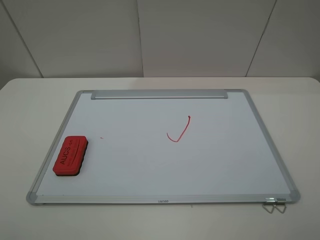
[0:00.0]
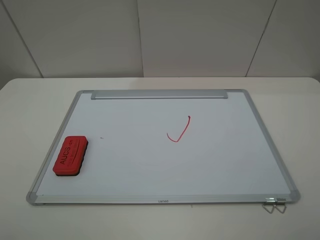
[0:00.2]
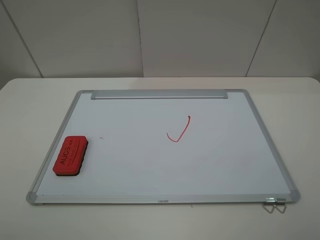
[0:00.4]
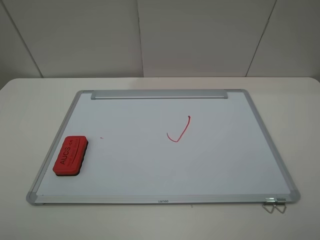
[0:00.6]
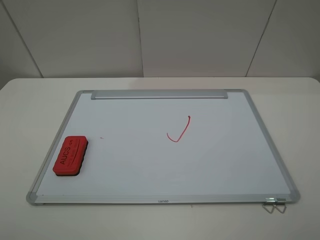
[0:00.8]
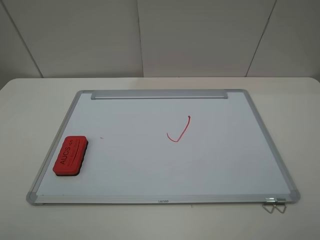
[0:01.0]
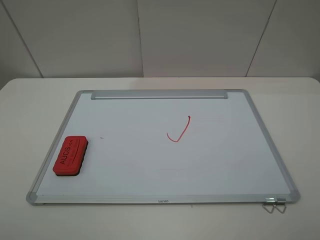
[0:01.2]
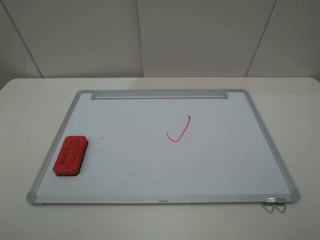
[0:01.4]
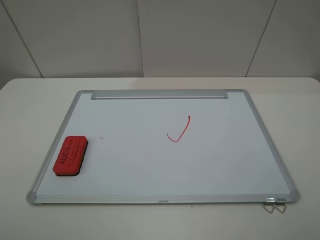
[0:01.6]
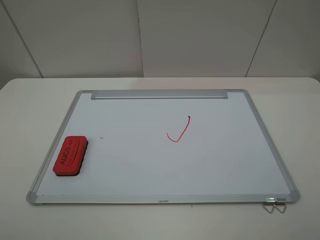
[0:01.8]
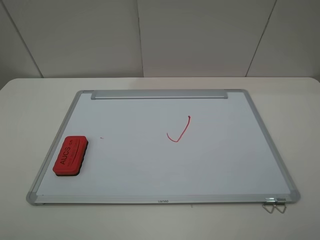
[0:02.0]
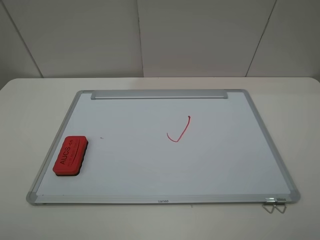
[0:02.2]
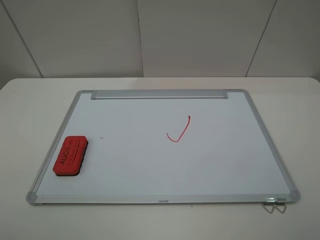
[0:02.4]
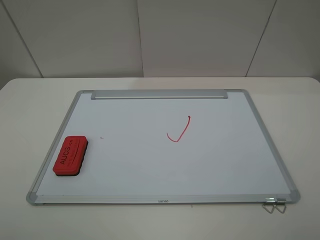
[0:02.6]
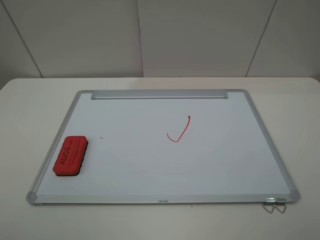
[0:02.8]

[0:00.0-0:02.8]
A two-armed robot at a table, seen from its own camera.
0:01.4 to 0:02.8: Both grippers stay about where they are.
